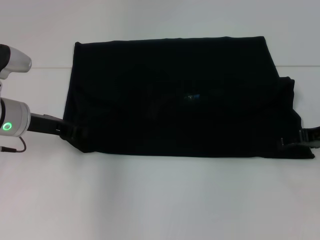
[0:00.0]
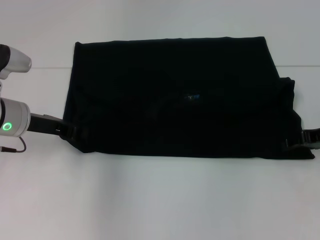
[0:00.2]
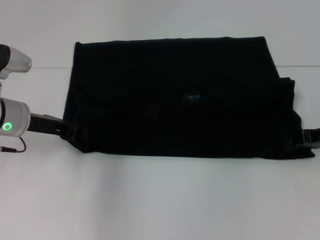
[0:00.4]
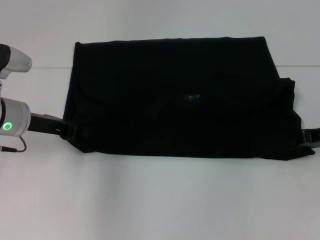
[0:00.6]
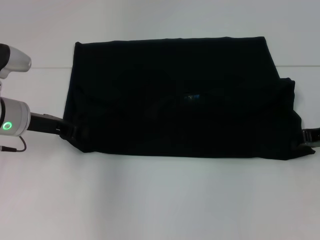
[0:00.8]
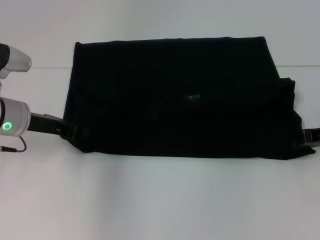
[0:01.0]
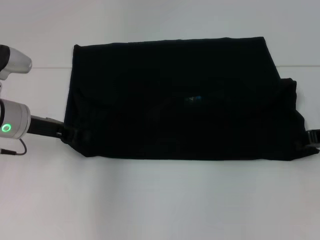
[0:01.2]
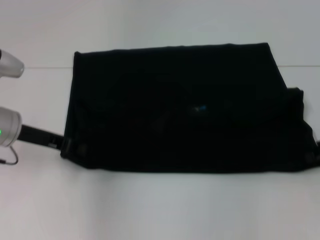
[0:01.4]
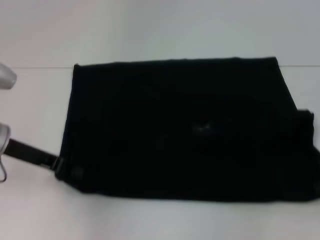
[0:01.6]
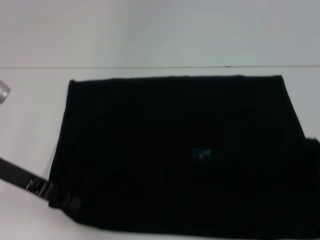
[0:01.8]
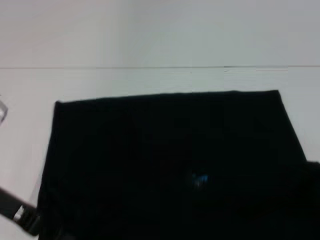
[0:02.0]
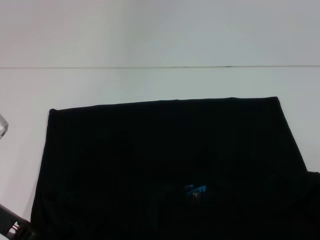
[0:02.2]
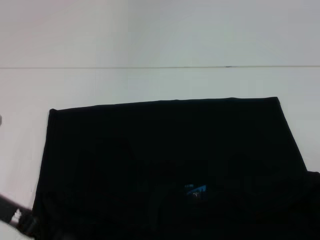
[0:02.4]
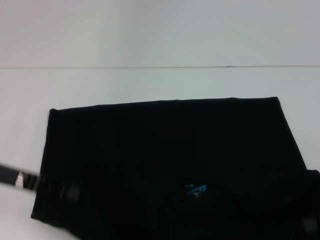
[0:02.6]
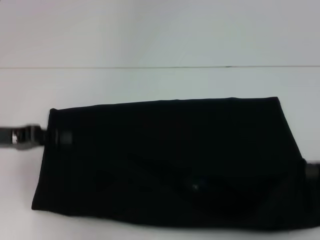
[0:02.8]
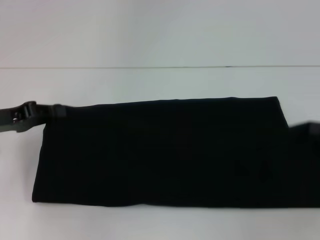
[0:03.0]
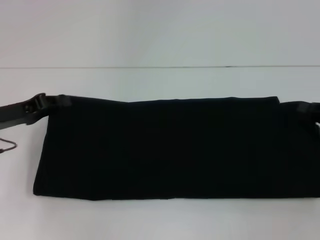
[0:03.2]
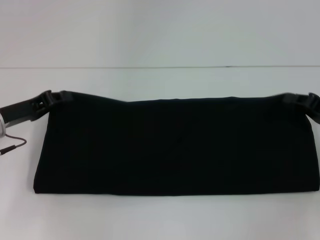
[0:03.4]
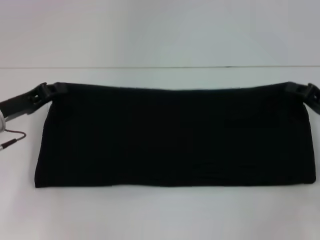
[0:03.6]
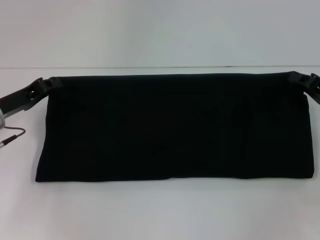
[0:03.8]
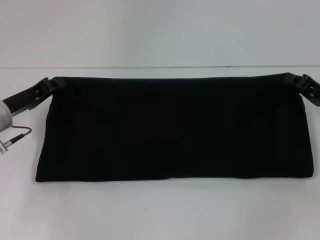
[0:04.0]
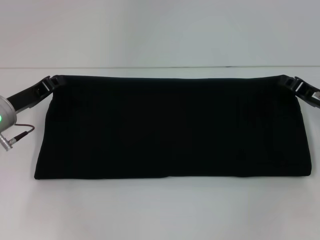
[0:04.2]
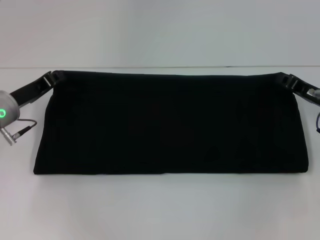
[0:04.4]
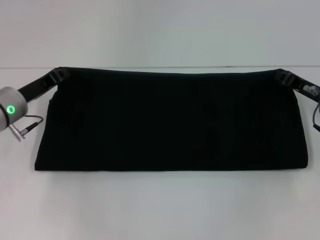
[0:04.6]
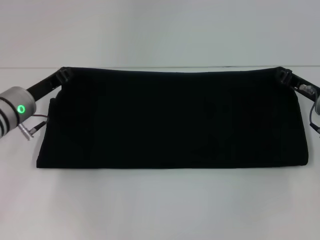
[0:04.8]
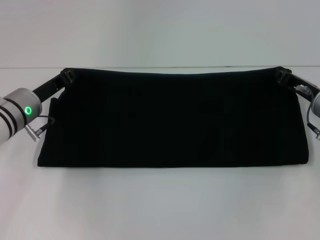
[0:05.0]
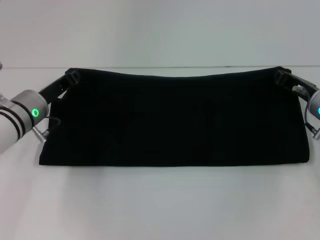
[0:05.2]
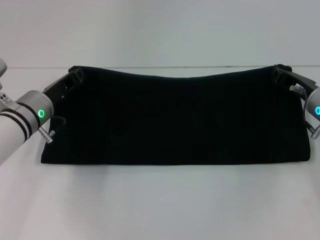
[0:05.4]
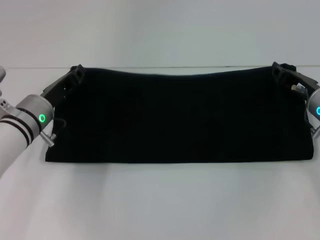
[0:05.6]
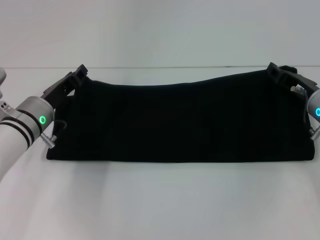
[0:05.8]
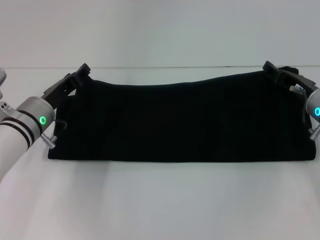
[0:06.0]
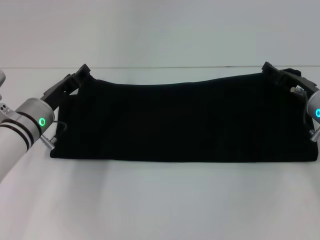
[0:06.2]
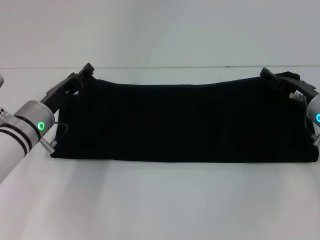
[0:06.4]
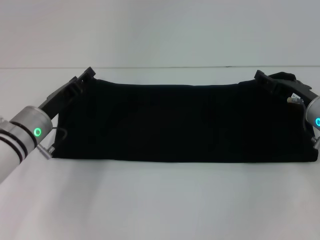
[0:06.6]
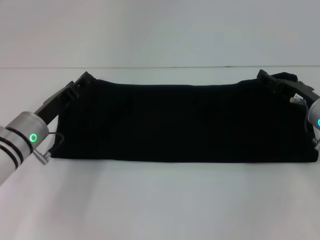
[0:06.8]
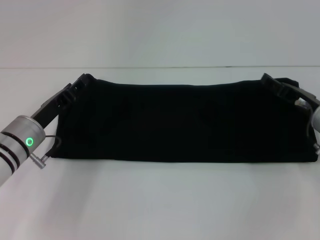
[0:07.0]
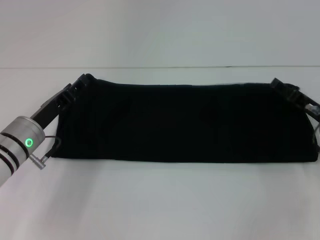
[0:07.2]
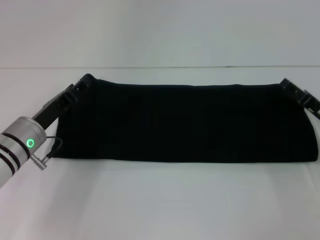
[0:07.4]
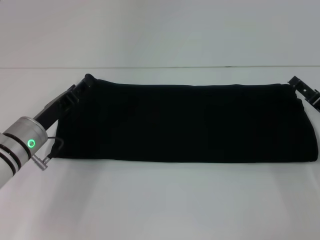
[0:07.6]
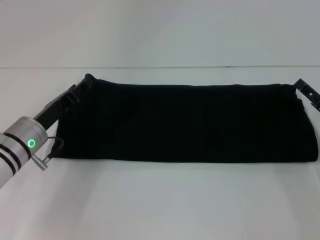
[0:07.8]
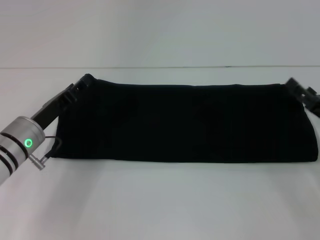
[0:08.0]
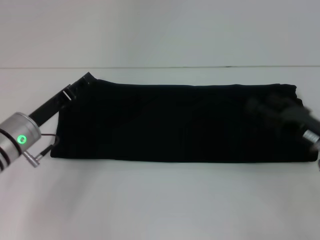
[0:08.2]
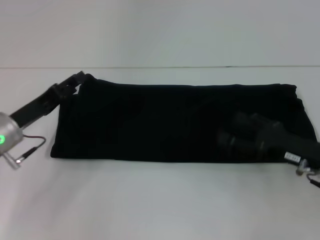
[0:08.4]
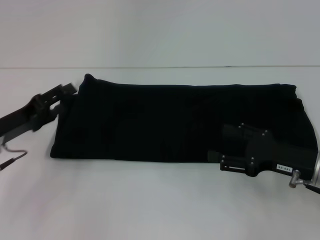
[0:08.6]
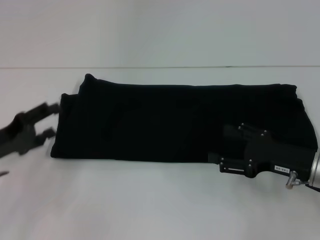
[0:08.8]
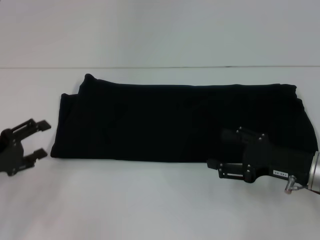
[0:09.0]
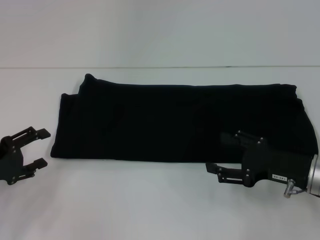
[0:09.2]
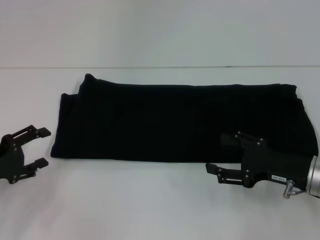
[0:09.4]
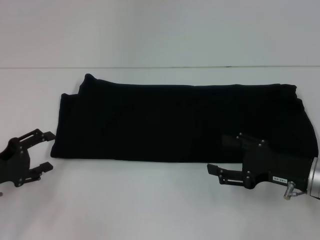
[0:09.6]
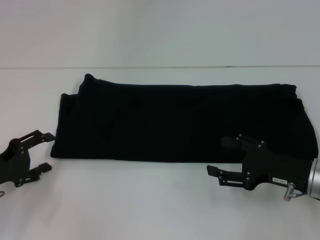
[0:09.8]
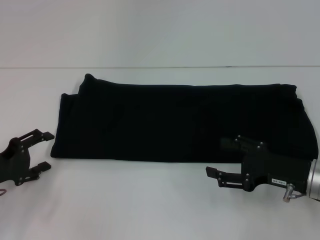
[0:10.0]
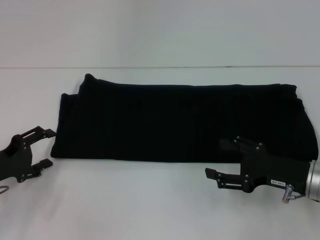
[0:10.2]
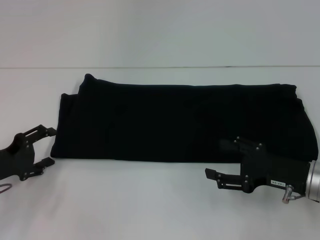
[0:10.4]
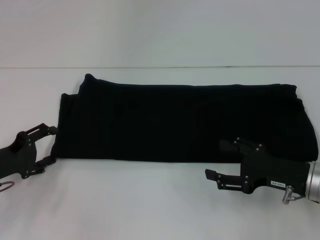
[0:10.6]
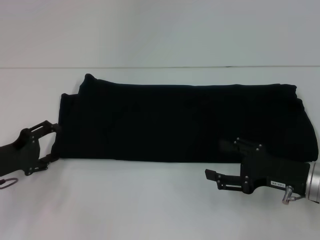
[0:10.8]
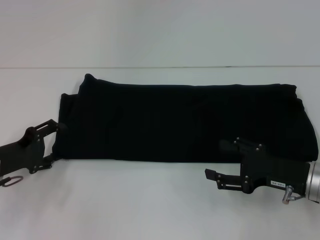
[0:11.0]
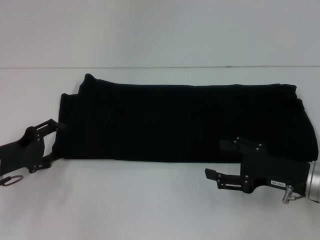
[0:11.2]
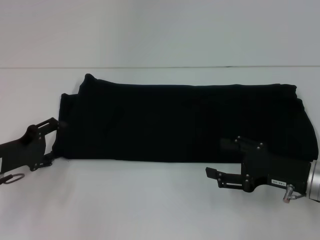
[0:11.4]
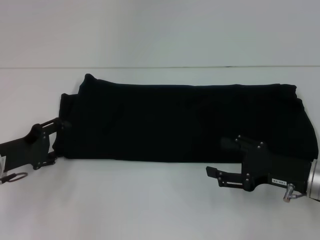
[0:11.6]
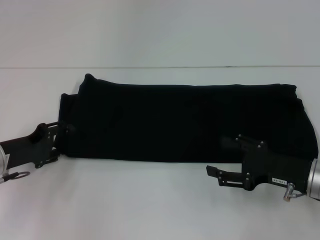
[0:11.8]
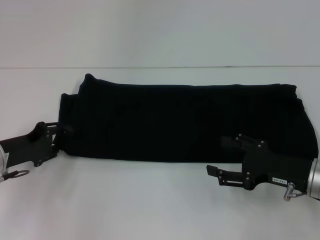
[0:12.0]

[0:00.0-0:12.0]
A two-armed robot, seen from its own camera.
Step, 0.0 to 2.2 s: Pull the clothes with your left hand.
Step, 0.0 to 2.2 s: Pull the clothes with your right hand.
Step, 2.4 to 6.6 s: Fold the clothes with your right hand.
0.0 to 1.6 s: The right gripper ends up approximately 5 cm from where it was, and closes up.
1.6 to 3.0 s: The left gripper travels to the left by about 5 cm.
3.0 to 4.4 s: The right gripper is displaced to the left and forward by approximately 15 cm, while the left gripper moves approximately 10 cm.
4.4 to 6.0 s: The left gripper moves to the right, approximately 5 cm, and opens its fingers. The right gripper opens its fingers.
6.0 to 7.6 s: The right gripper shifts some 10 cm backward and to the right.
7.6 to 9.0 s: The left gripper heads to the left and backward, covering roughly 15 cm. Meanwhile the right gripper shifts approximately 5 cm to the left.
9.0 to 10.4 s: The grippers move only a little.
10.4 to 12.0 s: The grippers make only small movements.

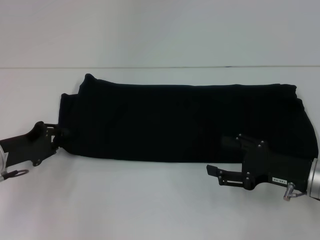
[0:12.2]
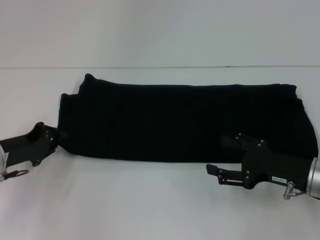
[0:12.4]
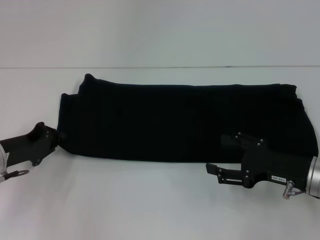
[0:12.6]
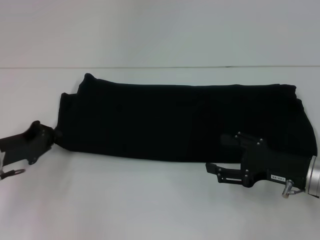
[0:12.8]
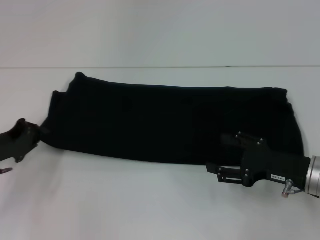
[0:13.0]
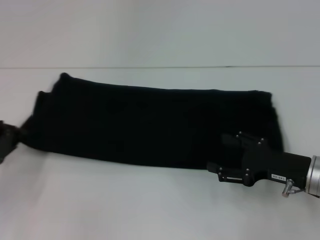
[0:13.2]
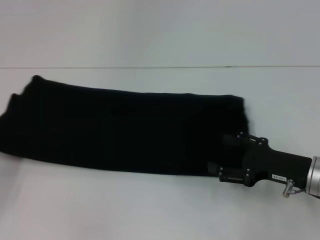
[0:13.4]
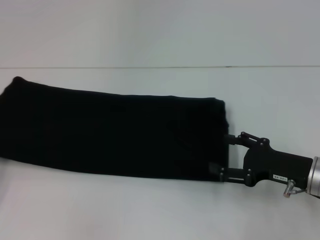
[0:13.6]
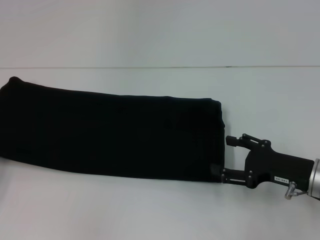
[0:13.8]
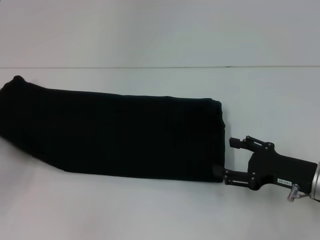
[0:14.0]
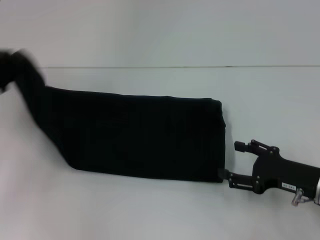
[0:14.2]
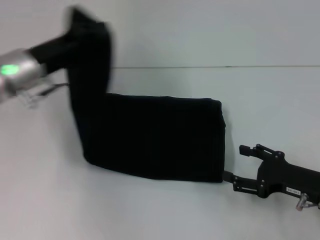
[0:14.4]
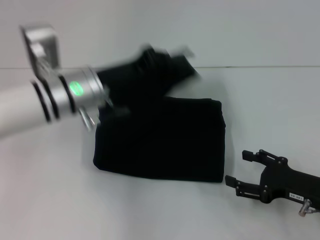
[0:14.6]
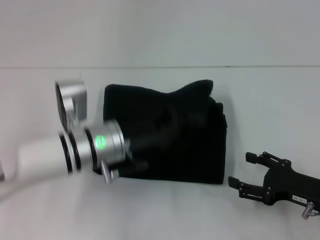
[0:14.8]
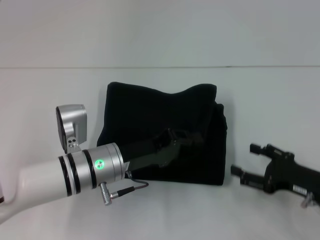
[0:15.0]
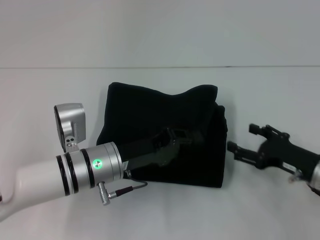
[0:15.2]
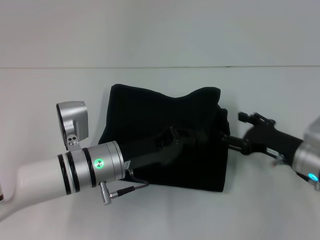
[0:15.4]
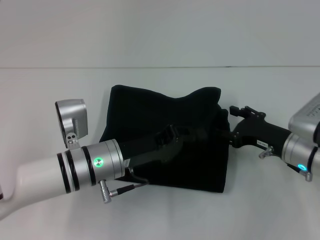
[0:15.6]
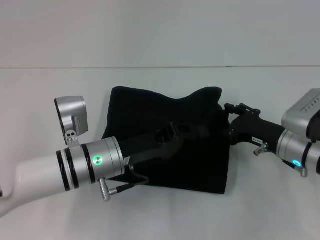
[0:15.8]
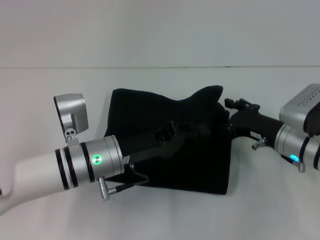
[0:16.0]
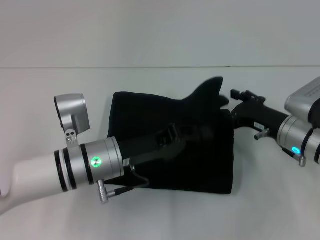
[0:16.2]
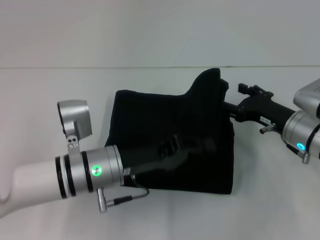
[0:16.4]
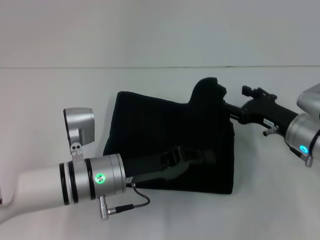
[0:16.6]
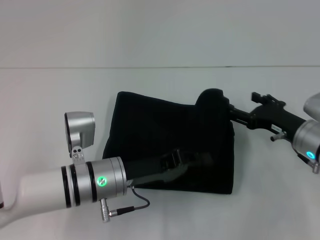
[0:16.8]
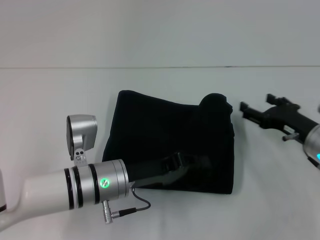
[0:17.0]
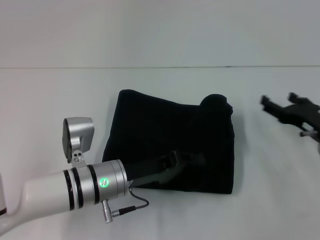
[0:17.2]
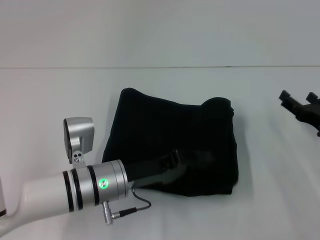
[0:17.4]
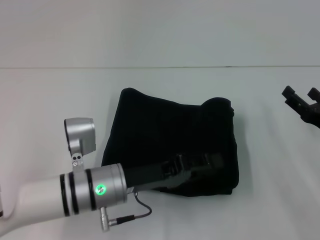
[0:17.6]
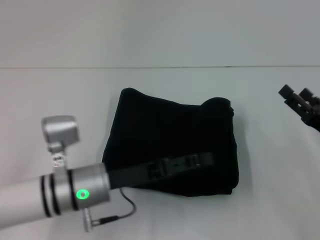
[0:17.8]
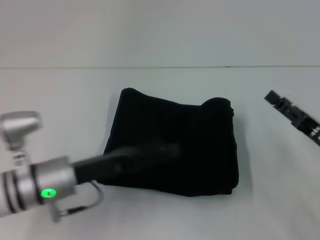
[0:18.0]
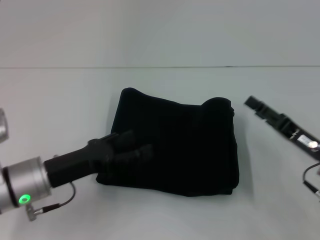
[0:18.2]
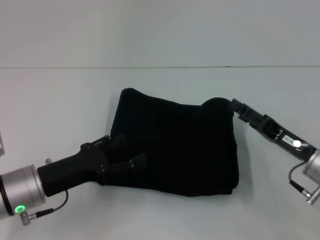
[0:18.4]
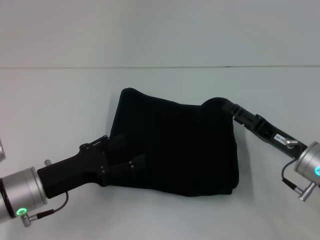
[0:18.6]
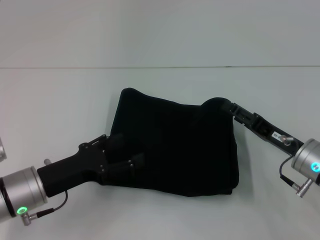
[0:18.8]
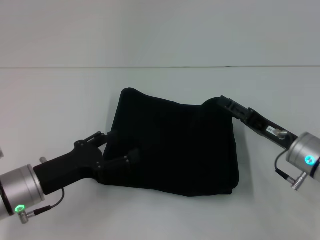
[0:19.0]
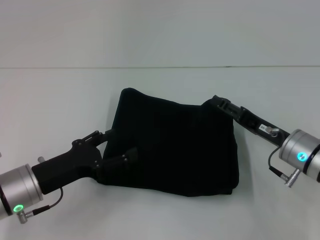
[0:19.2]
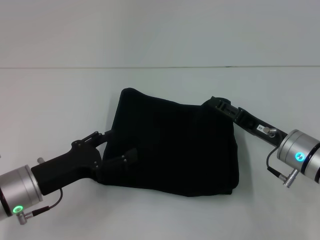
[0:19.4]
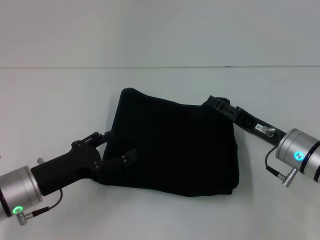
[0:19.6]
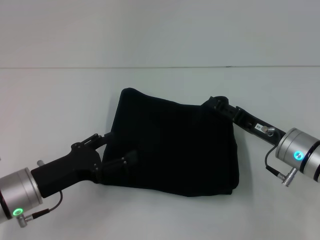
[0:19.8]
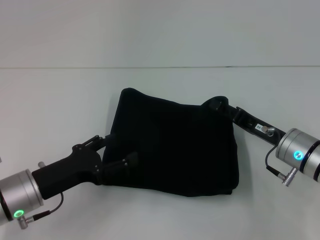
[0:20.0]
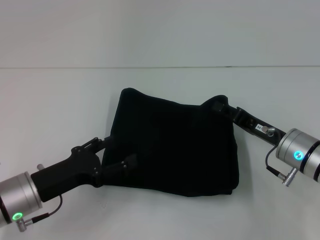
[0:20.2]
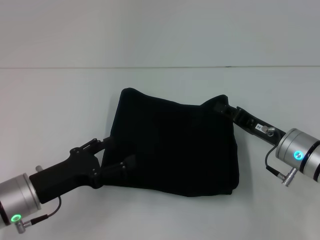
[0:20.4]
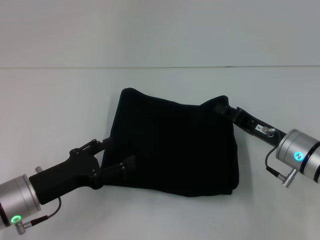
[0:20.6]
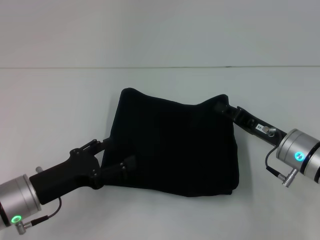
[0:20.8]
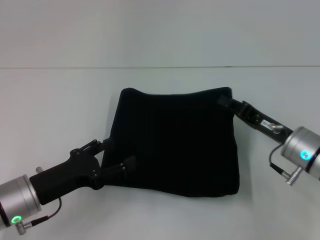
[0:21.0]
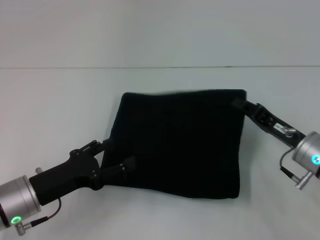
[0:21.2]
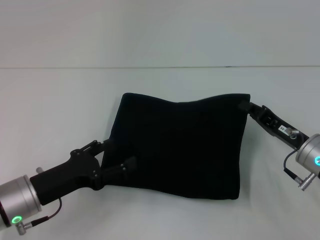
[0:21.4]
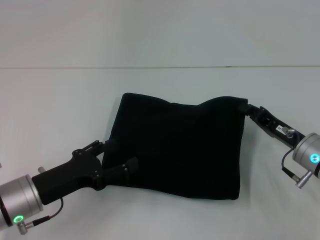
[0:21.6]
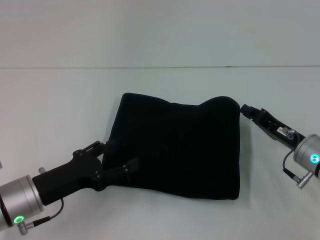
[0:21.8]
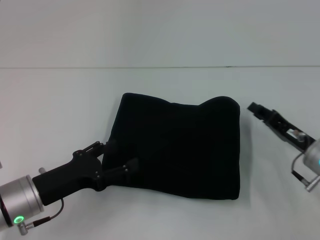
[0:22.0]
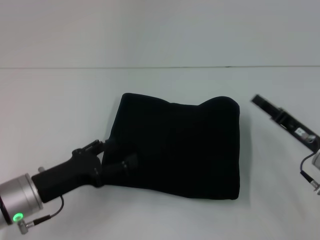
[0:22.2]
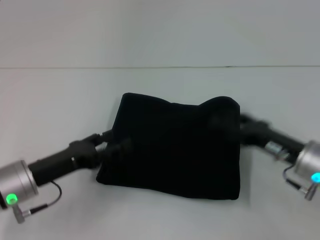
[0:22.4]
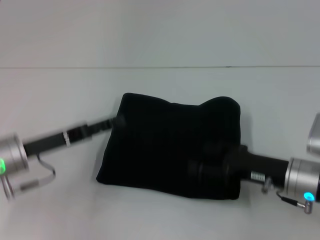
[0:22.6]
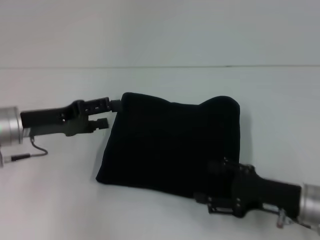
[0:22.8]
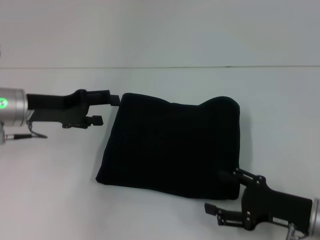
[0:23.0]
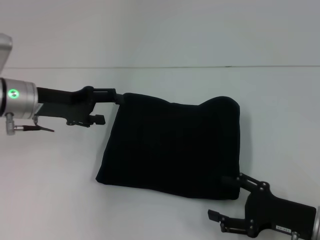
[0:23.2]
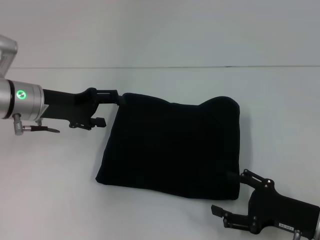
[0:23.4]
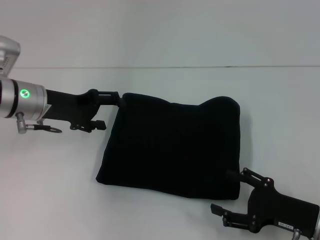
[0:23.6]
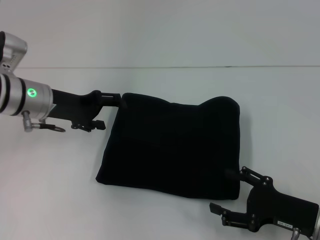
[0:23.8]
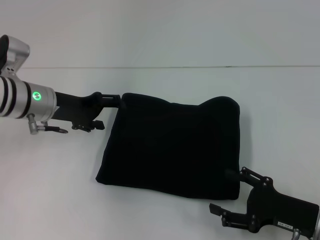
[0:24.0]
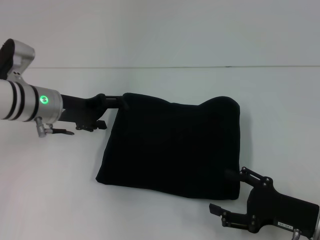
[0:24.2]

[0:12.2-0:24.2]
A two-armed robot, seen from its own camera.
Step, 12.2 to 15.4 s: Fold the clothes with your left hand.
12.2 to 13.8 s: The left gripper shifts about 10 cm to the left, and closes.
13.8 to 15.2 s: The left gripper travels to the right by roughly 30 cm.
15.2 to 16.6 s: The right gripper moves forward, roughly 5 cm.
16.6 to 18.2 s: The left gripper heads to the left, covering about 10 cm, and opens its fingers; the right gripper goes approximately 5 cm backward.
18.2 to 19.8 s: The right gripper moves to the left, approximately 5 cm.
19.8 to 21.2 s: The right gripper closes its fingers.
21.2 to 22.6 s: The right gripper opens its fingers. Meanwhile the left gripper moves forward, some 5 cm.
22.6 to 24.2 s: The right gripper moves backward, some 5 cm, while the left gripper heads forward, covering roughly 10 cm.
